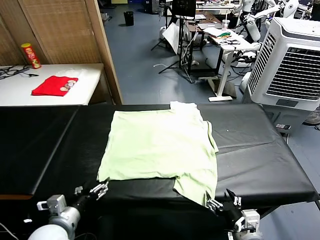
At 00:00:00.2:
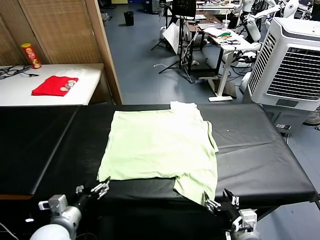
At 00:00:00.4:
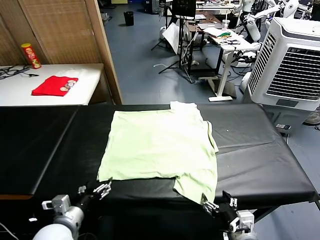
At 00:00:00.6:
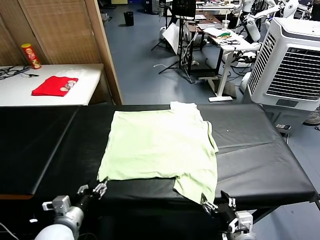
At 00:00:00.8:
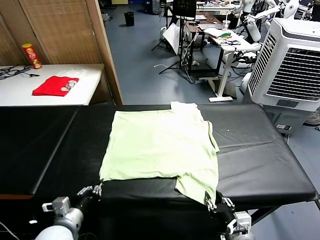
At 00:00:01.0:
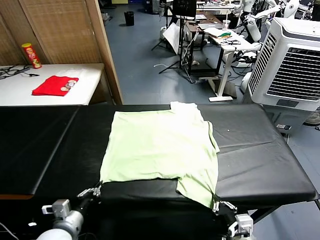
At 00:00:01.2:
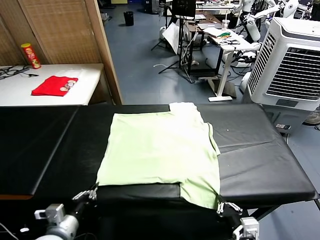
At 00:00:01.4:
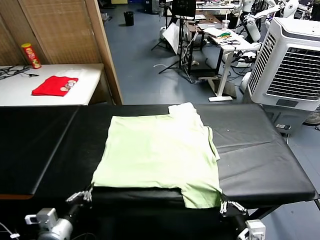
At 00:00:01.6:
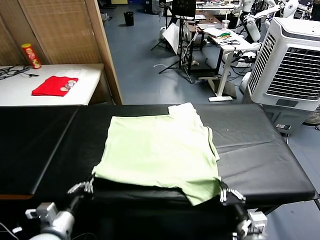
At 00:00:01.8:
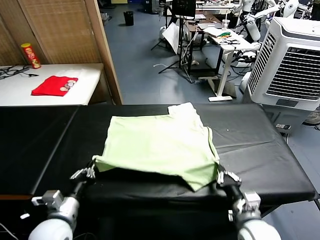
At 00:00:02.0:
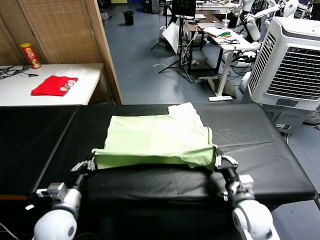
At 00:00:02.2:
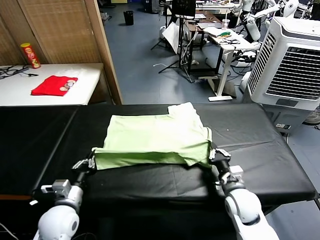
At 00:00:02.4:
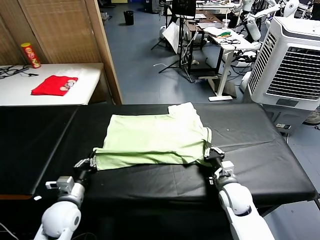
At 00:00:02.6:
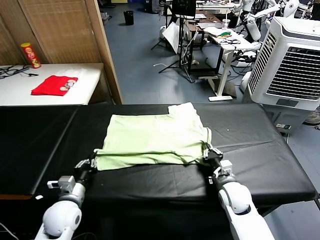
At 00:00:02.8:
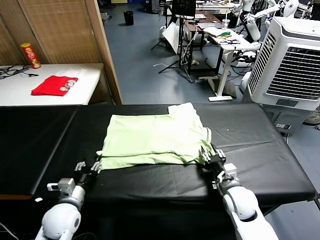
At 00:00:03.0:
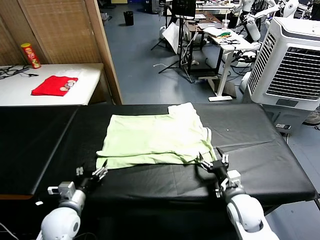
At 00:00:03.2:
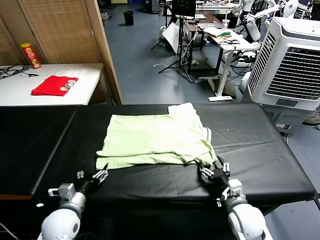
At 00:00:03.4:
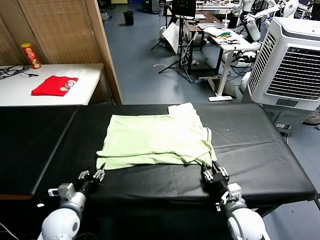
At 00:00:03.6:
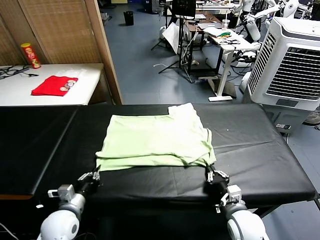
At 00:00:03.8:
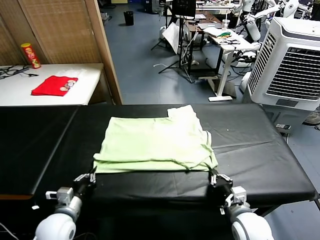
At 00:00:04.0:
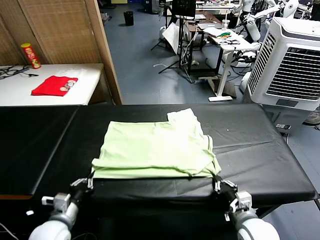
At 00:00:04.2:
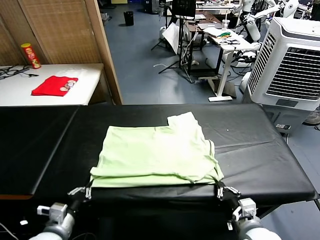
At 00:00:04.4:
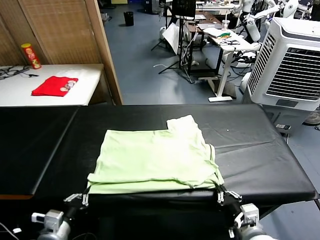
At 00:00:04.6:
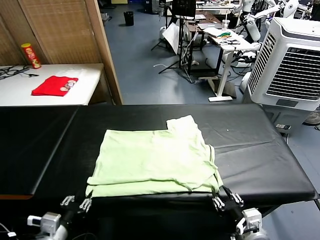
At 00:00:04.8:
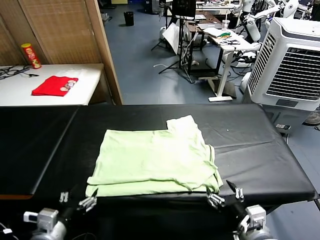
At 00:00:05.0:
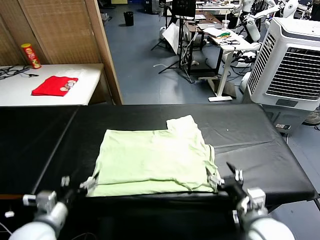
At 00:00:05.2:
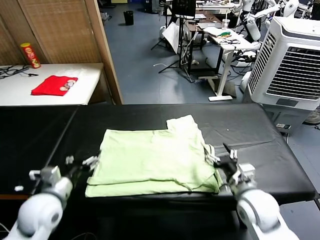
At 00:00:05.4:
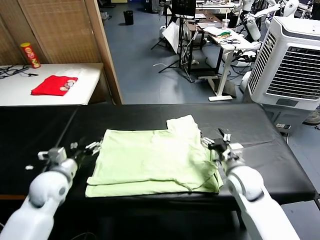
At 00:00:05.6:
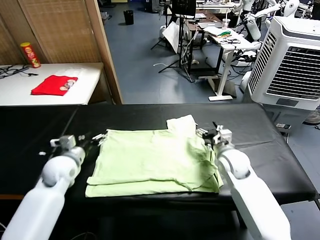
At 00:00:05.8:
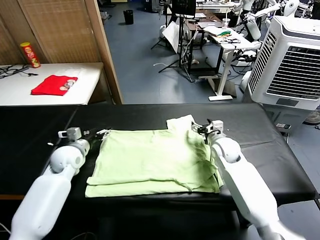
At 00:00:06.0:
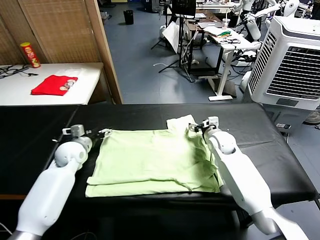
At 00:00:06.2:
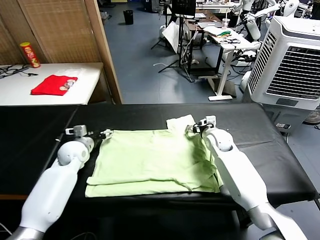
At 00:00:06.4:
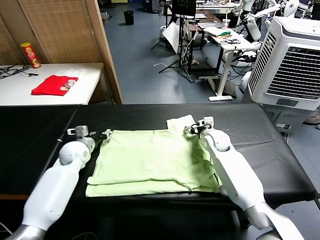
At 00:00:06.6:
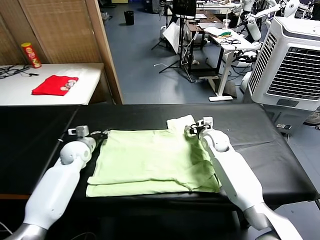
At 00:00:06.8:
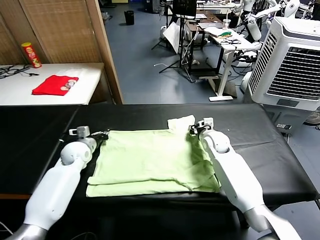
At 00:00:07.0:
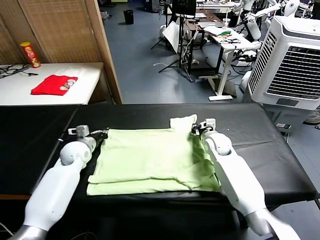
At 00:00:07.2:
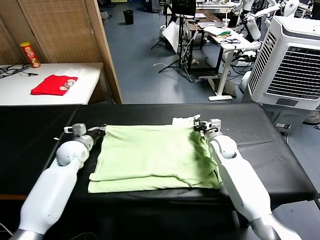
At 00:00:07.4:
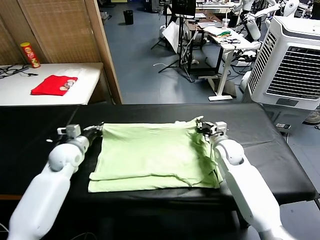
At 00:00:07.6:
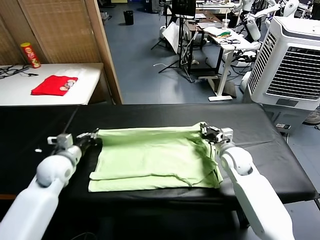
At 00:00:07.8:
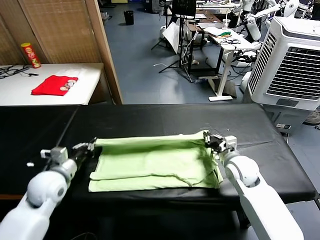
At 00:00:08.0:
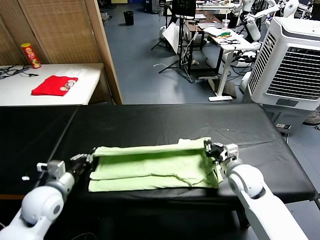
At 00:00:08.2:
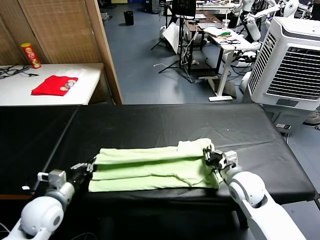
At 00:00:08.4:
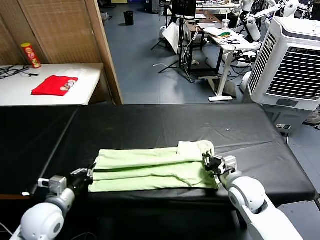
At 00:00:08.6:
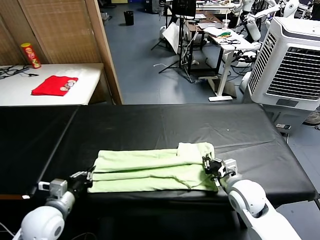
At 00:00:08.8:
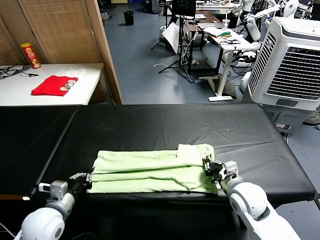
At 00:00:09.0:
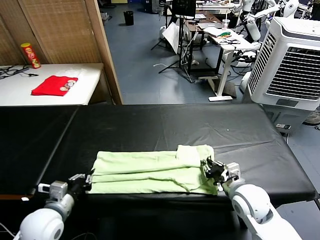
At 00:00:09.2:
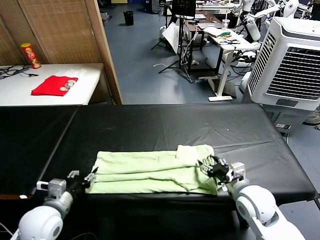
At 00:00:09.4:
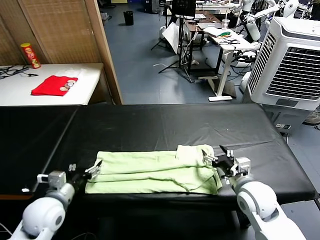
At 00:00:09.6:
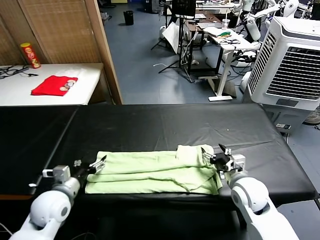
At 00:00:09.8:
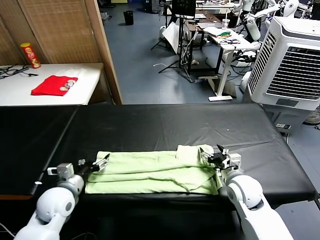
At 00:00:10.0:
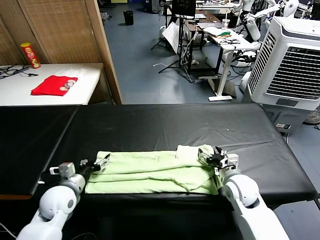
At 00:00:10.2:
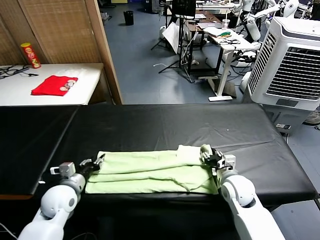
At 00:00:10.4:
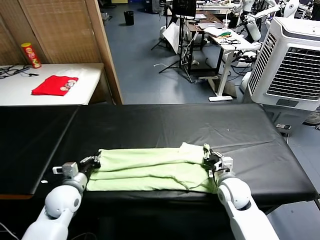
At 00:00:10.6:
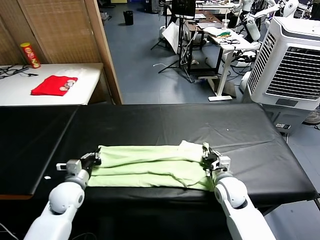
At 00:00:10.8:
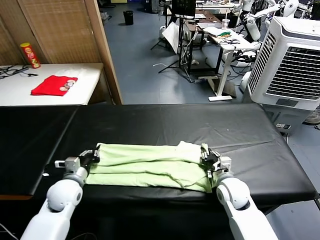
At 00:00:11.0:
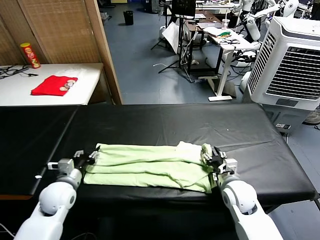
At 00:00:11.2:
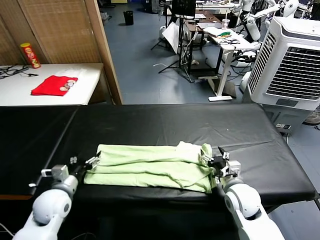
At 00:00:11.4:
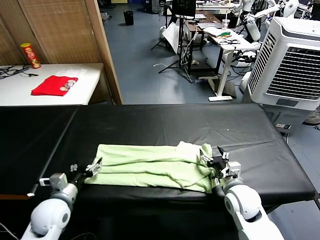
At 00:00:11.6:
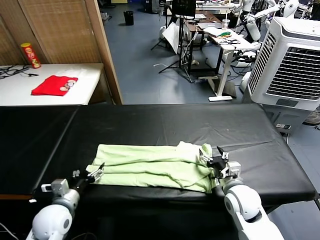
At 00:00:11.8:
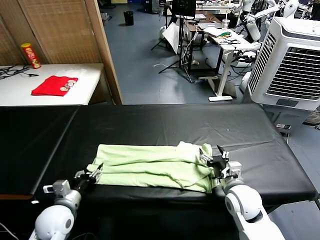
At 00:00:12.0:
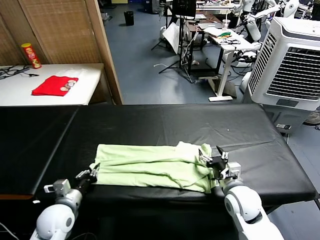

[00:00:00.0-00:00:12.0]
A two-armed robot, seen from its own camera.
Task of the whole recording: fold and organize the clothes.
Step, 00:00:00.0 to 00:00:01.0: use both grippers simultaneously to clamp the lower edge of the clothing fabric.
Step, 00:00:01.2 to 00:00:02.8: use both grippers to drag the lower edge of the fabric forward and fold it over the upper edge.
Step, 00:00:03.0 to 00:00:04.6: Drag the clothes downward with both gripper.
Step, 00:00:05.0 to 00:00:06.8: use both grippers simultaneously to clamp the upper edge of the clothing fabric.
Step, 00:00:07.0 to 00:00:09.2: use both grippers to drag the upper edge of the fabric backward and fold it over the lower edge.
00:00:01.6 to 00:00:03.0: The left gripper travels forward and downward by some 10 cm, and opens. The right gripper moves about 10 cm forward and comes back, and opens.
00:00:03.0 to 00:00:04.4: The left gripper moves backward, some 10 cm, and closes up, while the right gripper is displaced backward and upward by about 15 cm, and closes up.
00:00:04.4 to 00:00:06.0: The grippers both shift forward by some 35 cm. The left gripper opens its fingers; the right gripper opens its fingers.
00:00:06.0 to 00:00:07.6: The grippers both shift backward by approximately 10 cm. The right gripper closes its fingers, while the left gripper closes up.
00:00:07.6 to 00:00:09.0: The two grippers go some 15 cm backward. The right gripper opens.
00:00:09.0 to 00:00:10.4: The left gripper goes some 10 cm forward, and opens, then closes once more. Meanwhile the right gripper is displaced downward and forward by about 10 cm, and closes its fingers.
00:00:10.4 to 00:00:12.0: The right gripper shifts by roughly 5 cm, and opens. The left gripper heads backward, covering approximately 5 cm, and opens, then closes again.

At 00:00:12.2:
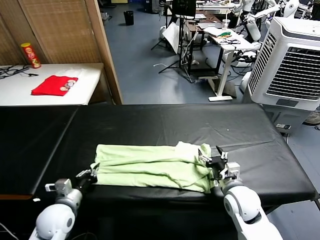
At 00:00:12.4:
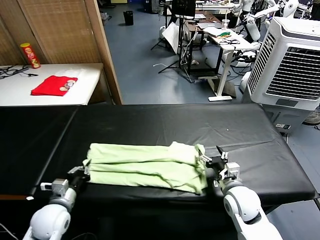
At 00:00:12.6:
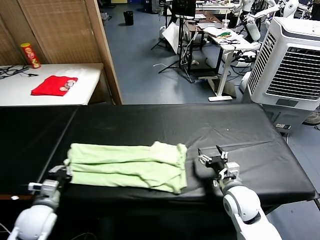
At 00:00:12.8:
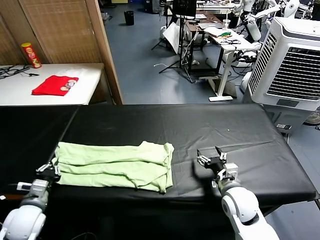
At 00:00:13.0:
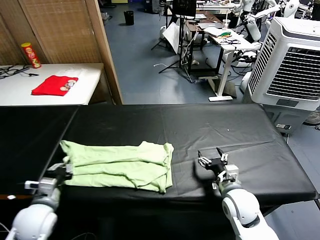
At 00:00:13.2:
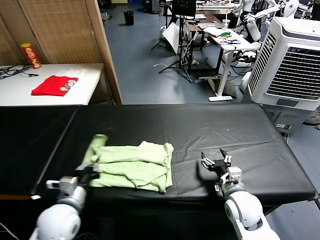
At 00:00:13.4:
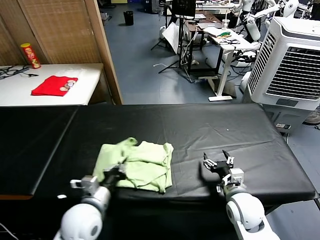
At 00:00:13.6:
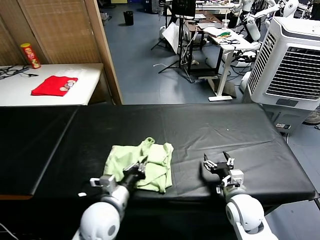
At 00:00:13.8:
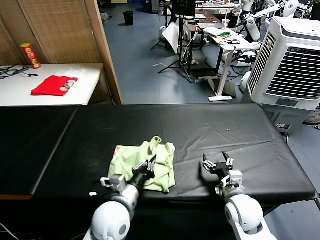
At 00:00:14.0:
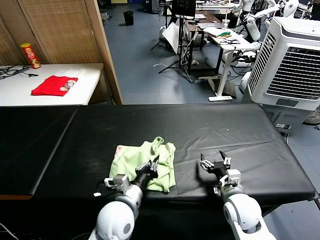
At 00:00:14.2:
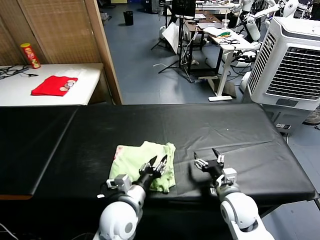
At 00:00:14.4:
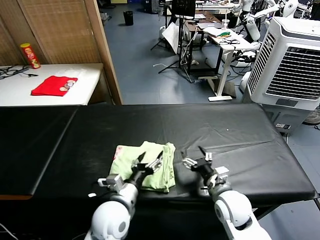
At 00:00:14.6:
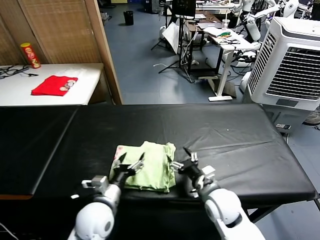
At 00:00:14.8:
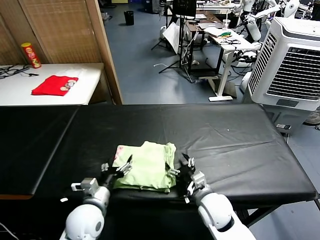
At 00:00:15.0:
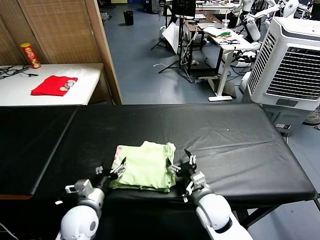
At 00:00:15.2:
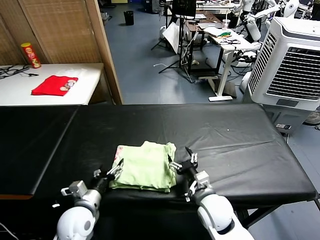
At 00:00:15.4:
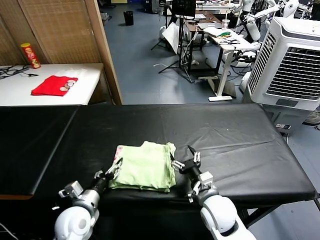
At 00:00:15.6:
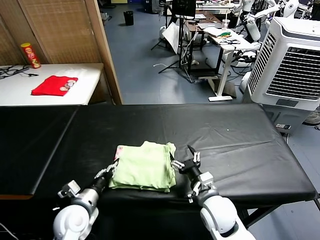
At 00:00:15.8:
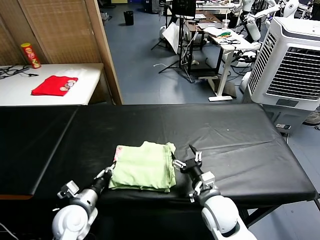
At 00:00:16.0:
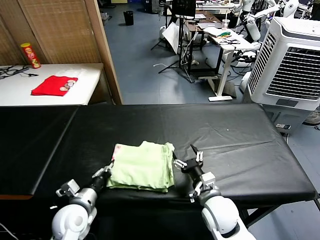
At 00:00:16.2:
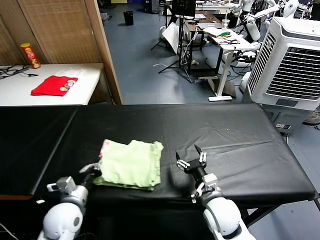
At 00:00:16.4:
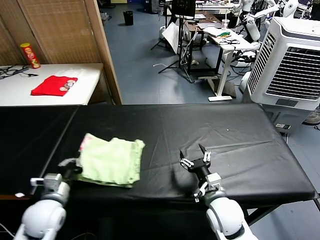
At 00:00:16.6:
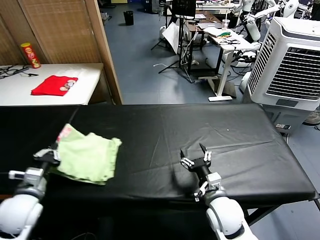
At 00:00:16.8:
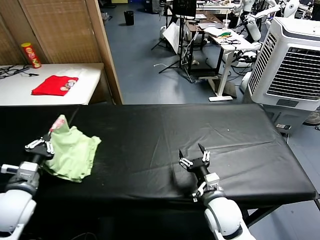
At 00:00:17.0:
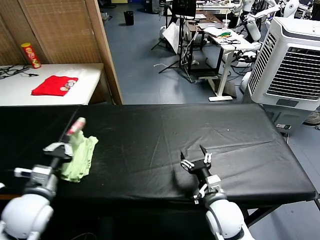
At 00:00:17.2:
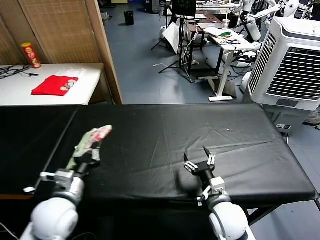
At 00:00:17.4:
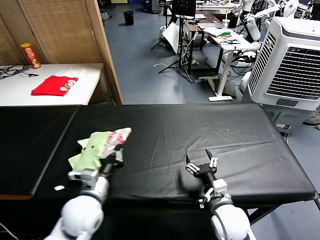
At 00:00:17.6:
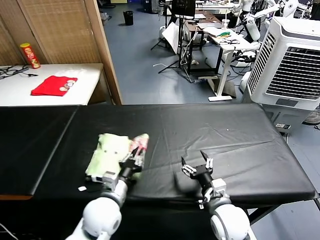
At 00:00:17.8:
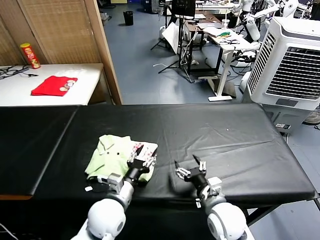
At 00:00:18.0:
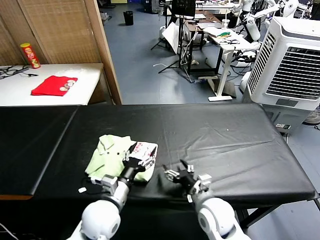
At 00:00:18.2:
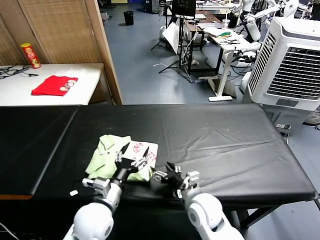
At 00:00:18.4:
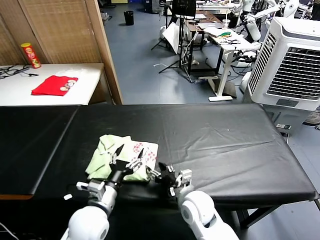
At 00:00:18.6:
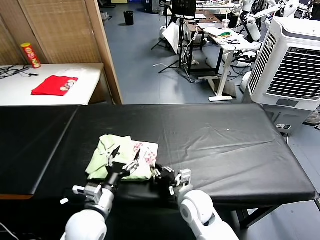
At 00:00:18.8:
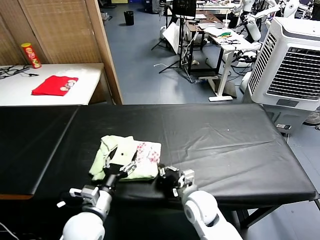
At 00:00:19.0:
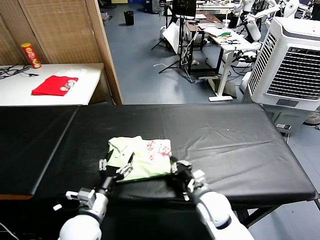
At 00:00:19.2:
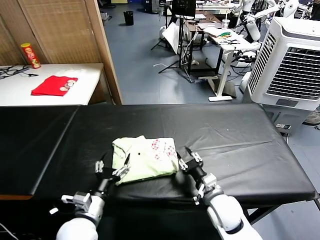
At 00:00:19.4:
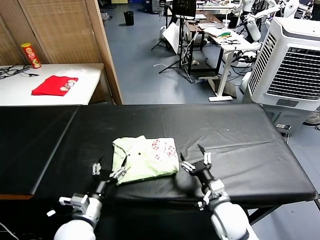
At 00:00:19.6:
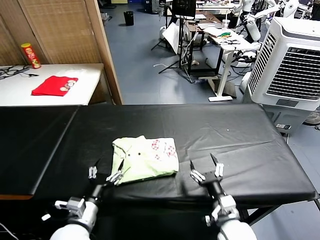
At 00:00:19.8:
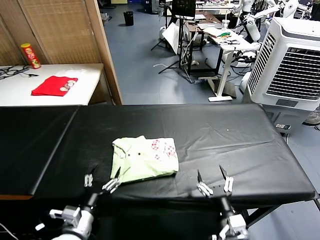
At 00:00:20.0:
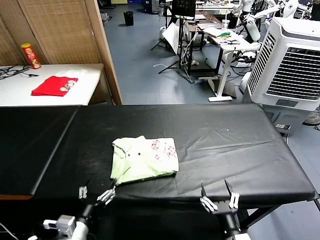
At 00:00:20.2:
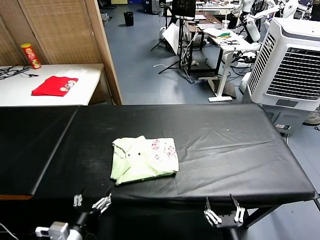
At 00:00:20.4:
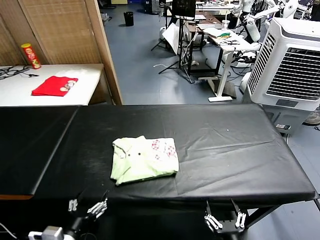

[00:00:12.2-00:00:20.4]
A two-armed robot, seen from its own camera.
Task of the whole recording: fold and organize the clothes.
Step, 00:00:12.2 to 00:00:14.2: use the left gripper to drag the left edge of the fabric to the left and folds it over the right edge.
Step, 00:00:14.4 to 00:00:17.8: Flip the folded clothes over with left gripper.
Step, 00:00:18.0 to 00:00:19.0: Drag the clothes to the center of the table.
00:00:12.2 to 00:00:13.8: The left gripper travels to the right by approximately 20 cm.
00:00:13.8 to 00:00:15.4: The right gripper shifts approximately 10 cm to the left. Meanwhile the left gripper travels to the left and downward by some 15 cm, and opens up.
00:00:15.4 to 00:00:17.2: The left gripper heads upward, covering about 10 cm, and closes up.
00:00:17.2 to 00:00:18.8: The left gripper travels to the right and downward by about 10 cm, and opens, while the right gripper travels to the left by some 5 cm, and closes.
00:00:18.8 to 00:00:20.4: The left gripper goes about 15 cm backward and to the left; the right gripper is displaced backward by about 25 cm, and opens.
